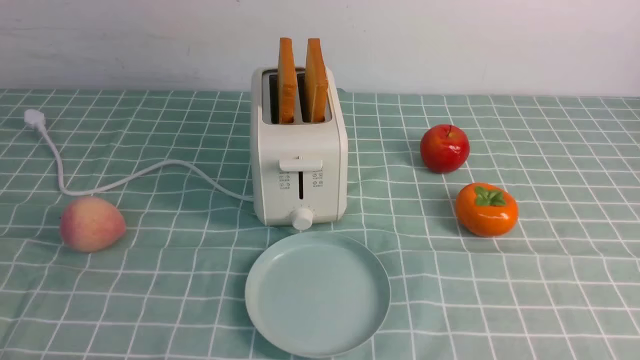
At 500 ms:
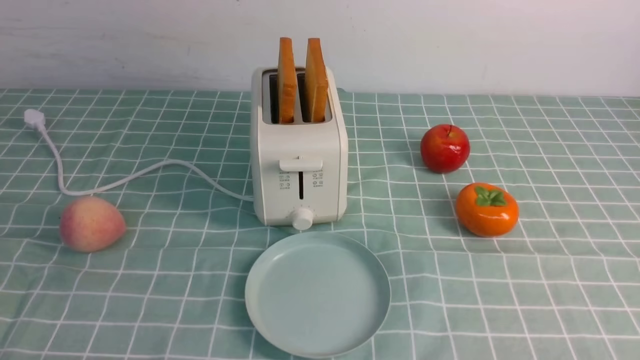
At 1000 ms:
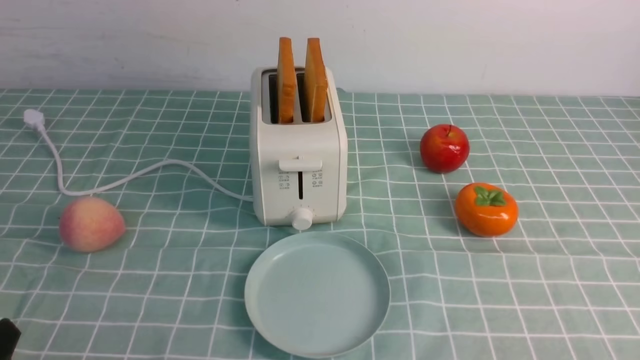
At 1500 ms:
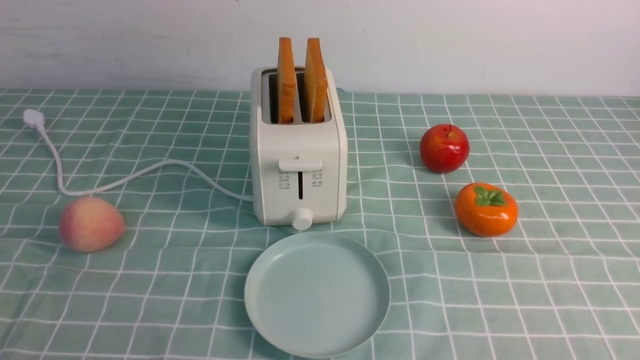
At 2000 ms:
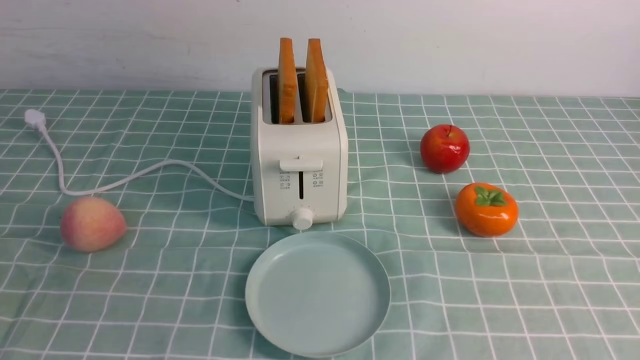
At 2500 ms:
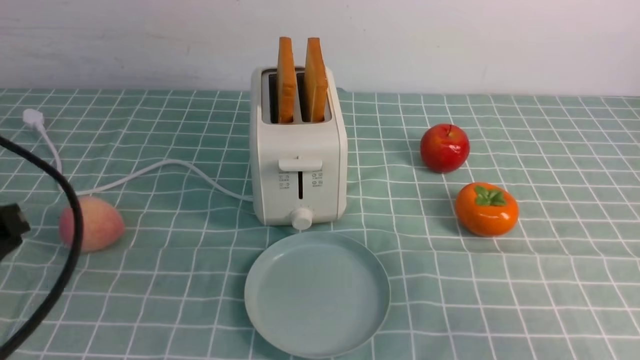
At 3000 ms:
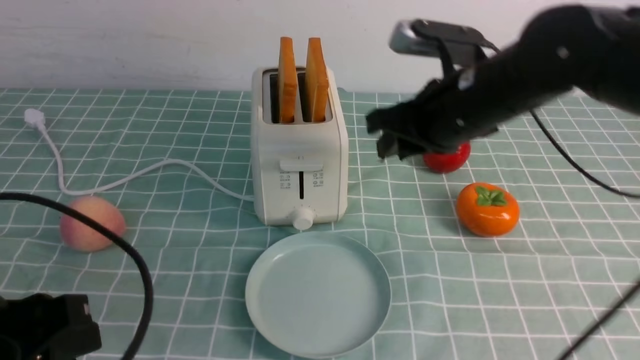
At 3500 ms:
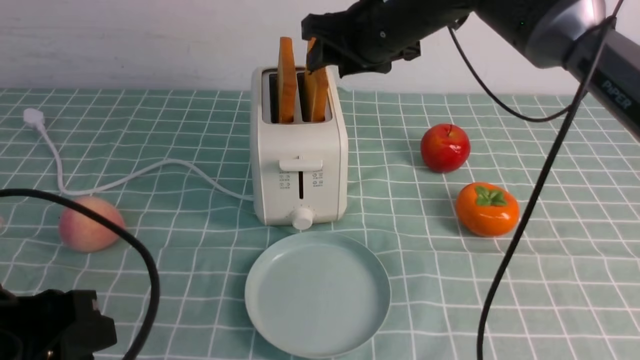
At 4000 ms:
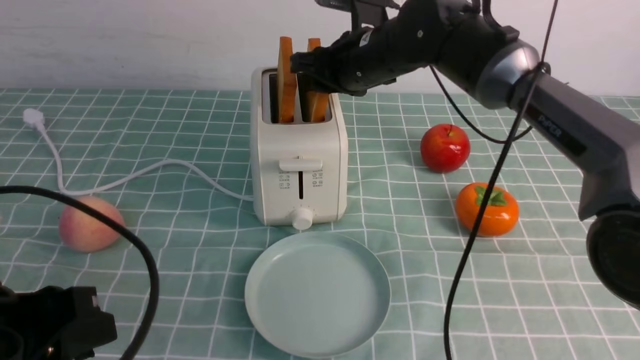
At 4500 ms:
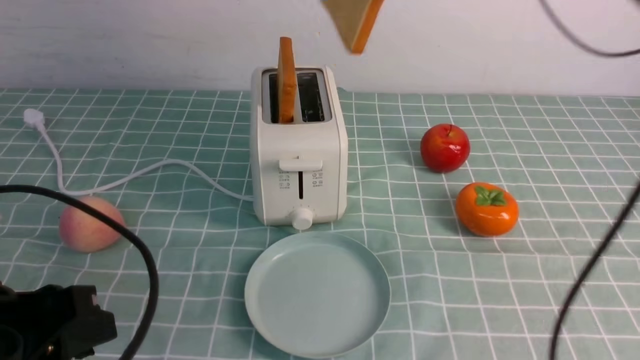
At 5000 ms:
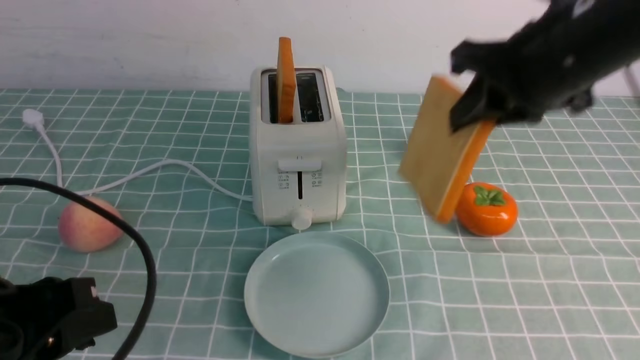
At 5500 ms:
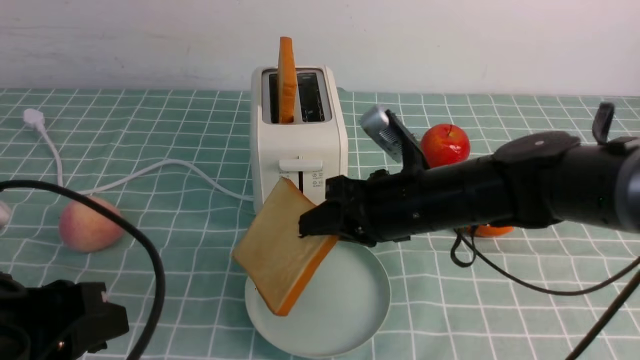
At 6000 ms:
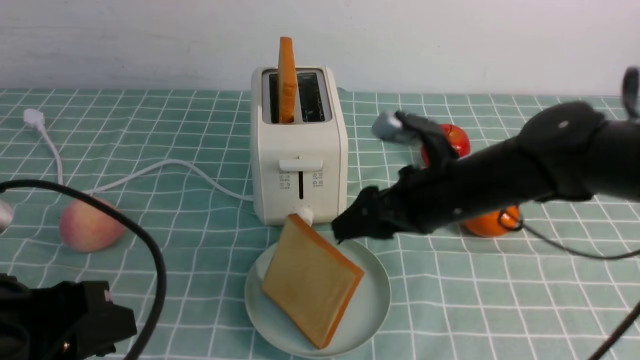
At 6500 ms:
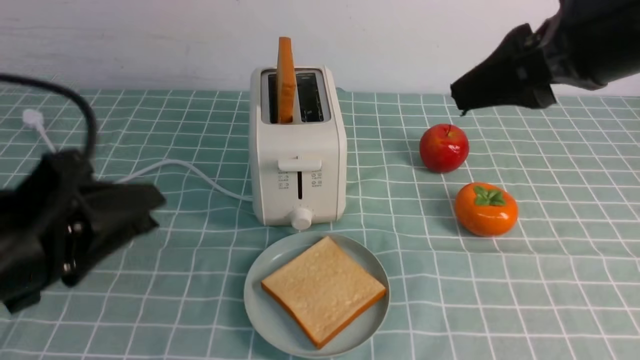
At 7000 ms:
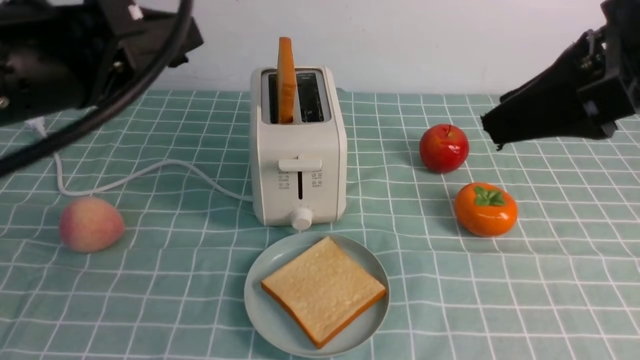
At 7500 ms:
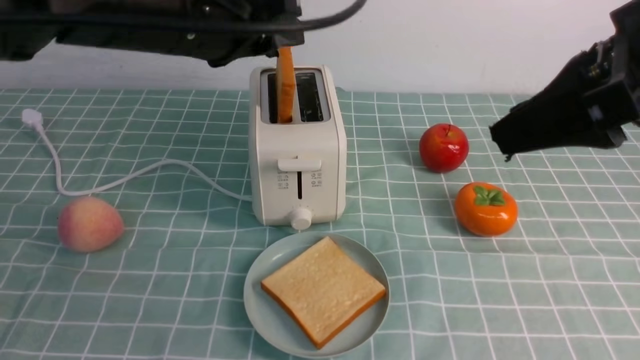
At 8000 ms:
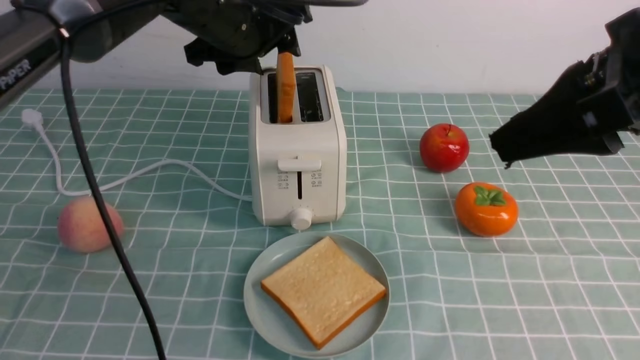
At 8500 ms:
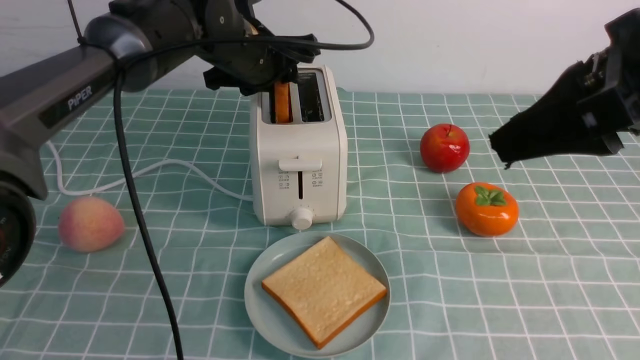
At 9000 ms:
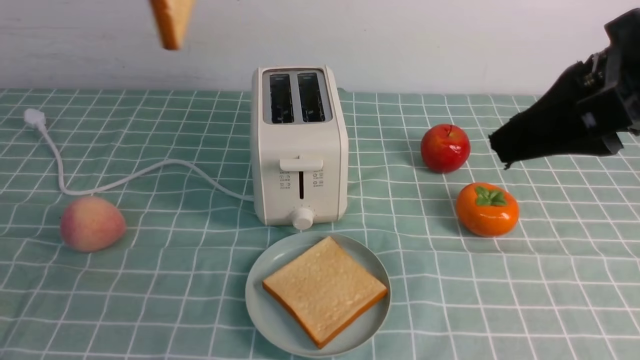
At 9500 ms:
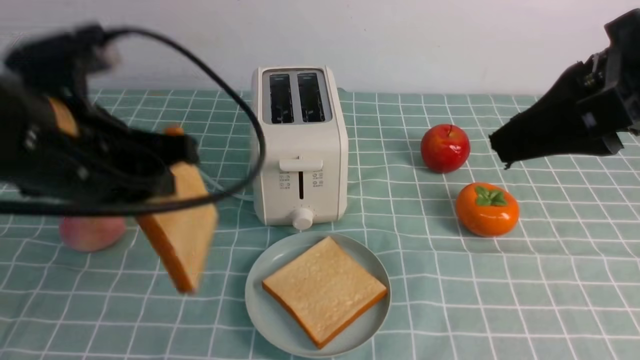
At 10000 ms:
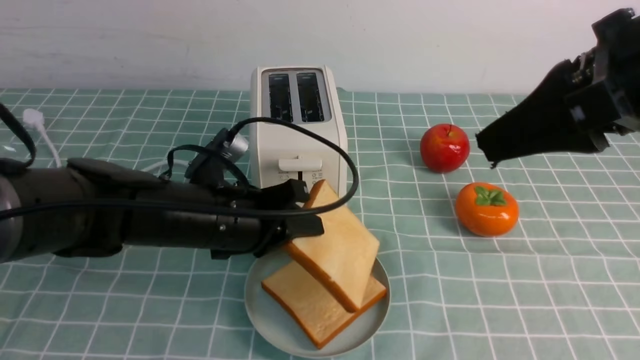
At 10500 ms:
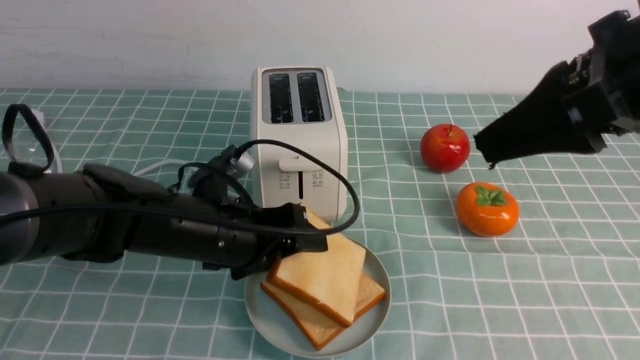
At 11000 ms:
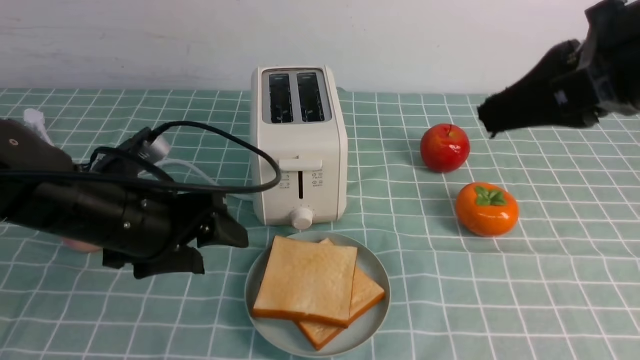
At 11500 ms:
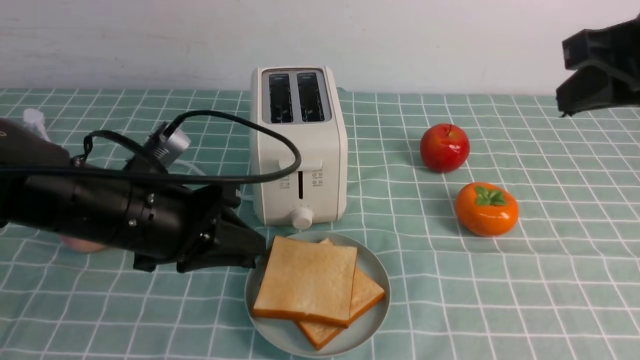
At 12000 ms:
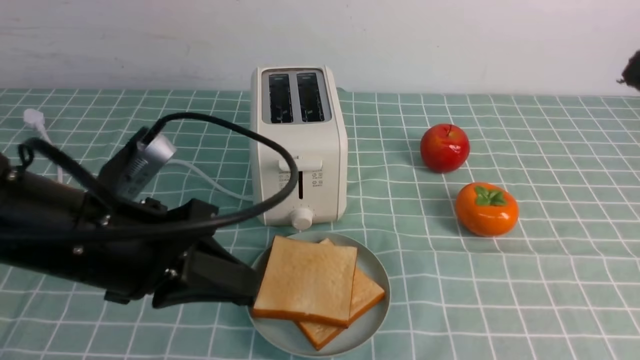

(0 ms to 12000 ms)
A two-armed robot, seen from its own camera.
Task of the whole recording: take toasted bread from bread machine on blue coffee table place on plate.
Step, 0 ms - 4500 ms: use the right arm to take out a slice of bread.
Step, 5000 ms - 6500 ms: use the right arm to put a slice of bread into the plate.
Step, 7000 ms - 8500 ms: use the left arm to take out a slice of bread.
Step, 9000 ms - 10500 ms: use the left arm to put a slice of bread into the empty plate.
2000 ms - 4000 ms: The left gripper travels forward by approximately 5 cm. The right gripper heads forward and to the left, covering approximately 50 cm.
4000 ms - 6000 ms: The right gripper goes up and down, about 20 cm each way, reversing 2 times, and opens up.
6000 ms - 8000 ms: The right gripper goes roughly 20 cm upward, backward and to the right. The left gripper heads forward, covering some 30 cm, and opens up.
8000 ms - 10000 ms: The left gripper goes about 20 cm backward and downward, and closes.
10000 ms - 12000 ms: The left gripper moves backward, upward and to the left, approximately 15 cm, and opens, then closes again. The right gripper goes approximately 10 cm to the right and downward, and closes up.
